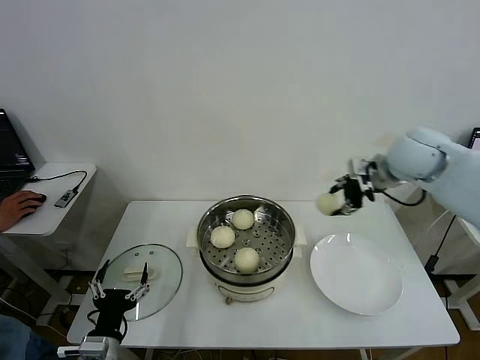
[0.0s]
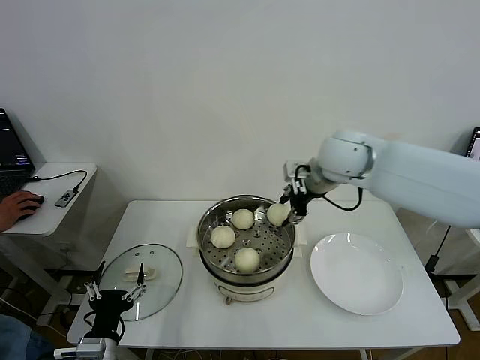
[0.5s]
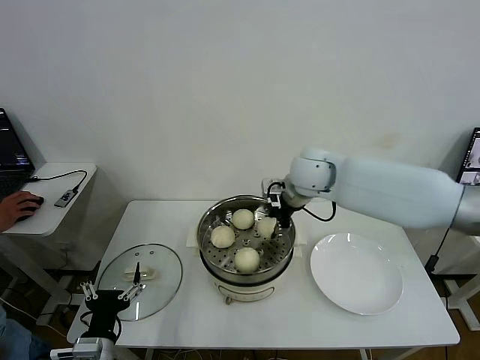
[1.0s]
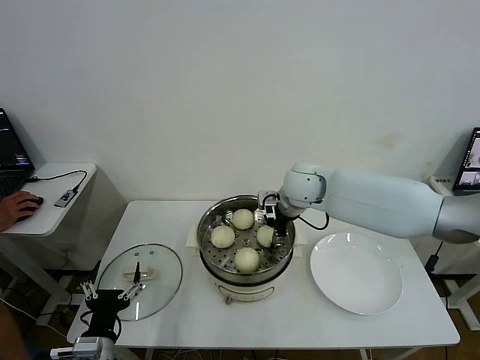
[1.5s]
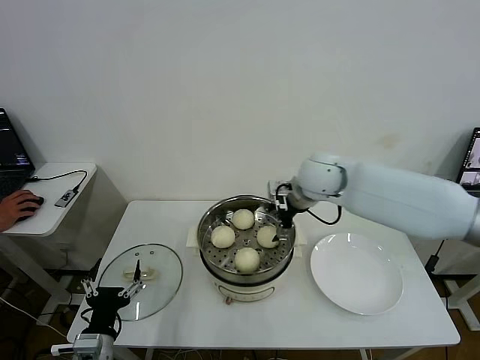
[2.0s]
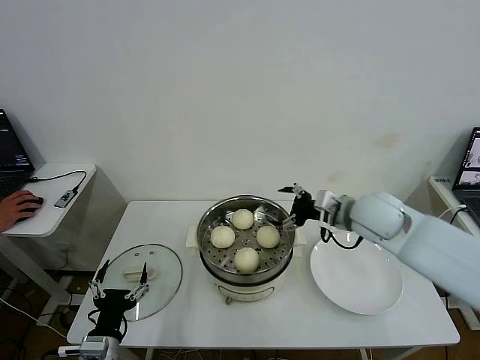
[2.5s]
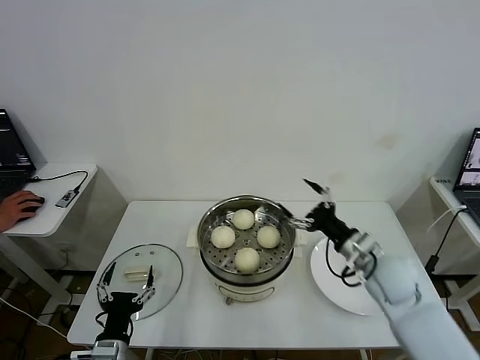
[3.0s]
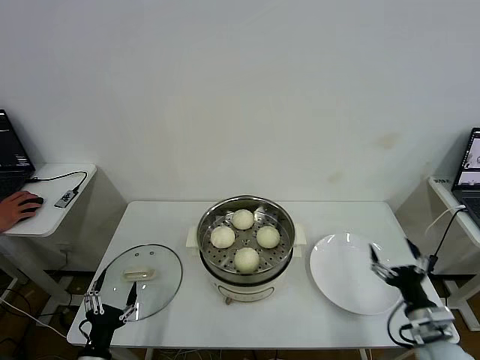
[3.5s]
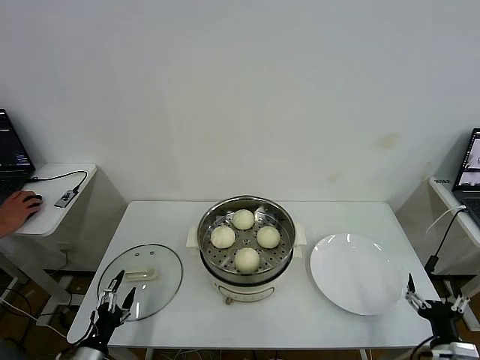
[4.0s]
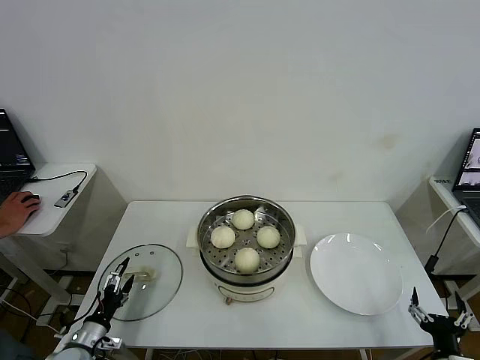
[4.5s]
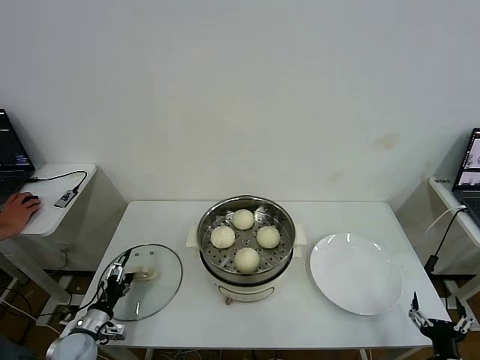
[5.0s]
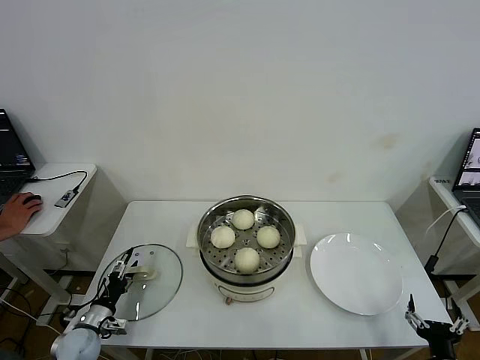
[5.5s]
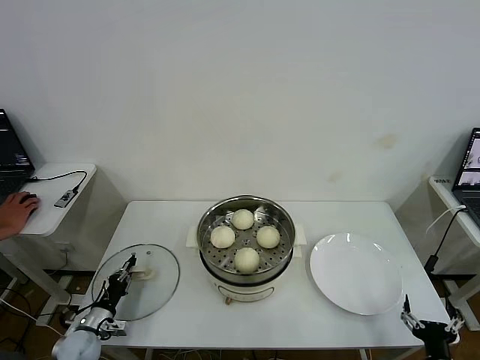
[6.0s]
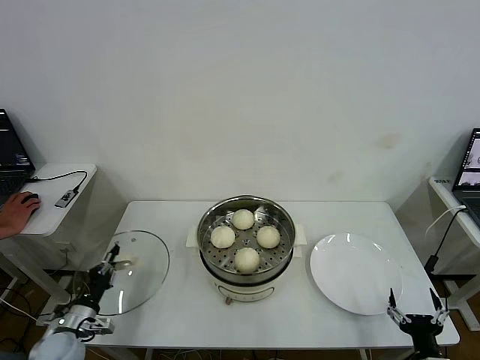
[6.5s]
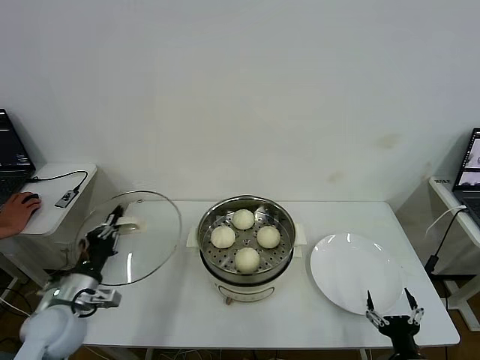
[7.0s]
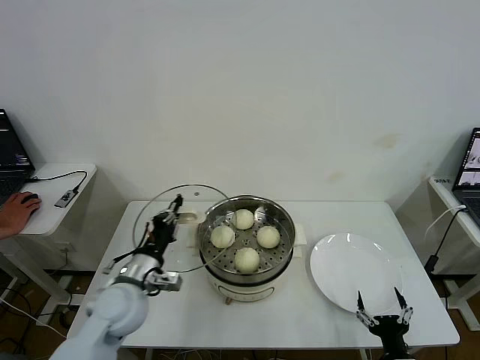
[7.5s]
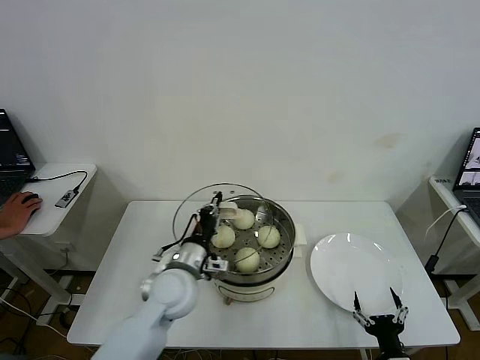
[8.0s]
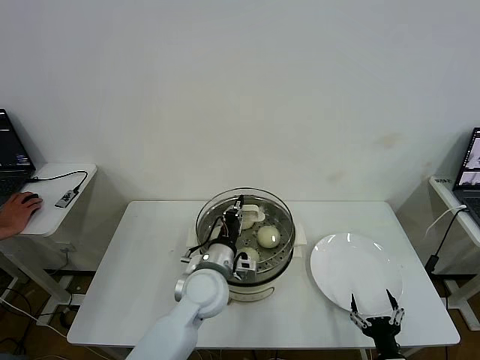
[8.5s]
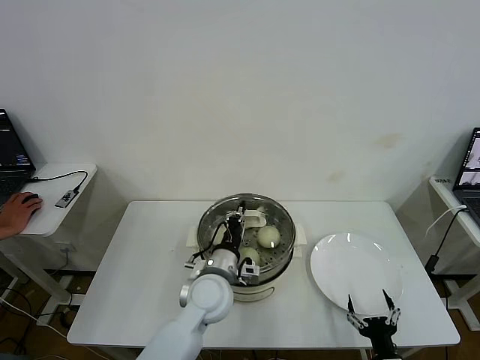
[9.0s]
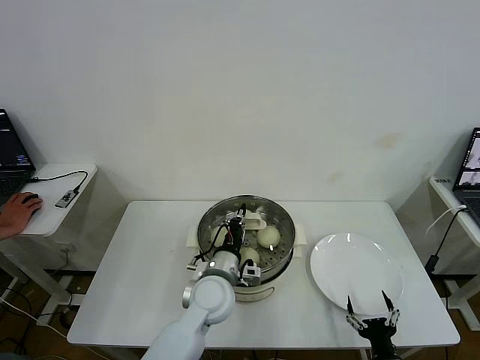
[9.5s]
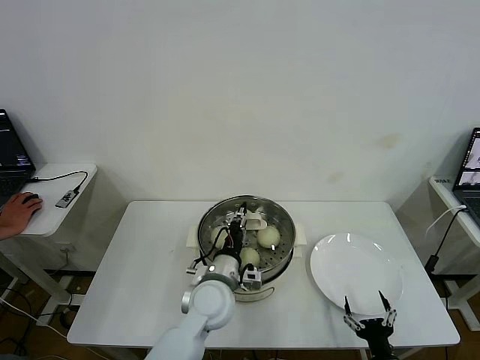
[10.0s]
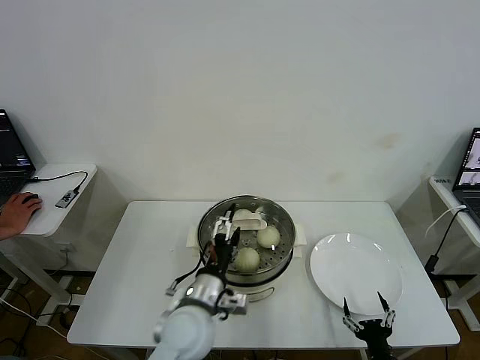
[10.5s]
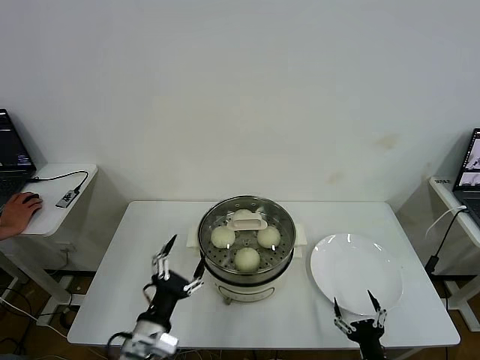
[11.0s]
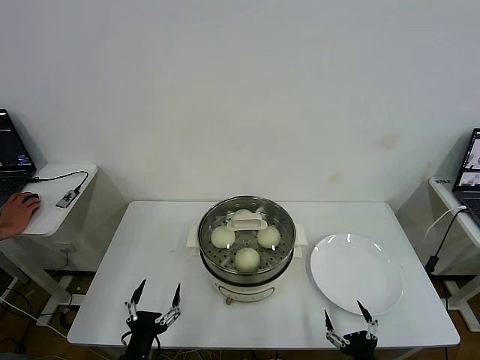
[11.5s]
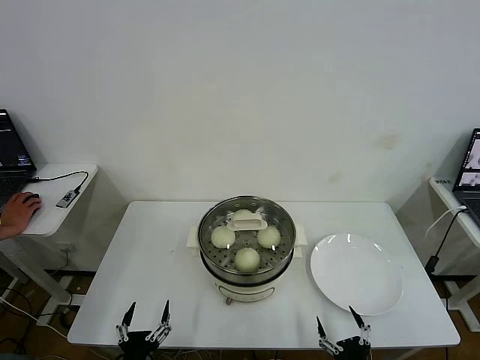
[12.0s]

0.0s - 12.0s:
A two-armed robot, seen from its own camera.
Task of the whole recording: take steamed baozi put them in steamer then cover it.
Step, 0.0s - 1.5s: Place the baozi on the steamer with right gripper.
Step, 2.0s - 6.0s: Grasp the pot lid with left gripper.
Step, 6.5s - 10.0s: Place the pot lid on the steamer with left gripper.
0.0s - 2.0s: The right gripper shifts about 15 cm to the left and downward, and opens.
2.0s - 4.0s: The right gripper heads backward, downward and to the right, covering about 50 cm. The left gripper shifts about 10 cm downward and to the left.
4.0s - 6.0s: The left gripper heads forward and downward, covering roughly 15 cm, and closes.
6.0s - 8.0s: The right gripper travels to the left by about 5 cm; the left gripper heads to the right and upward, covering roughly 35 cm.
8.0s - 10.0s: The left gripper goes roughly 10 cm to the right.
10.0s - 12.0s: The left gripper shifts approximately 30 cm backward, to the left and downward, and opens up. The right gripper shifts by roughly 5 cm.

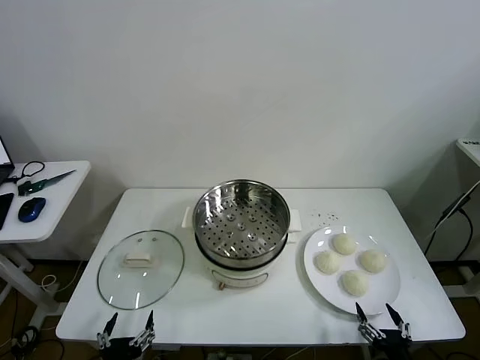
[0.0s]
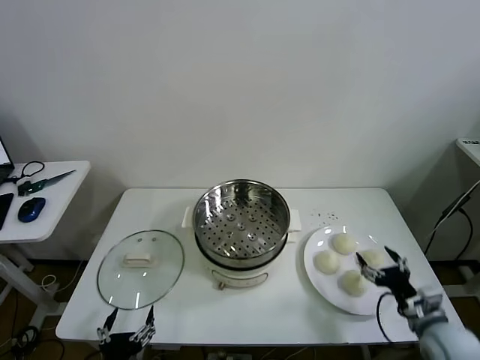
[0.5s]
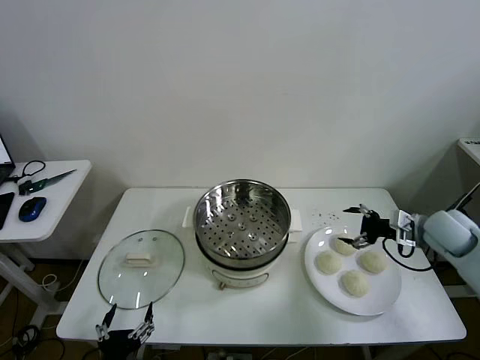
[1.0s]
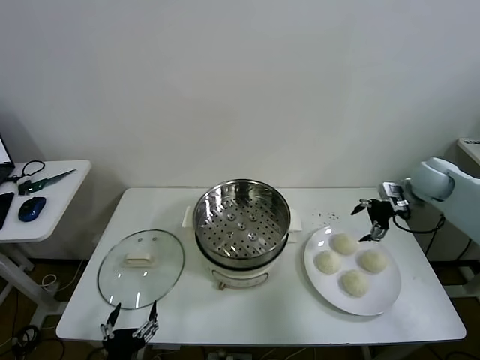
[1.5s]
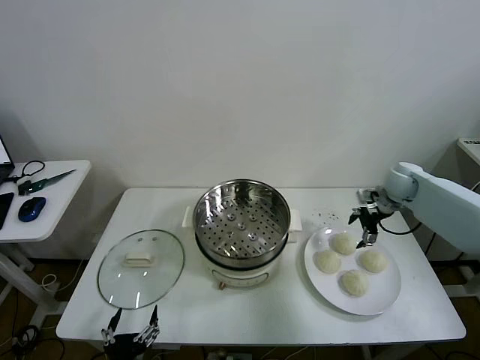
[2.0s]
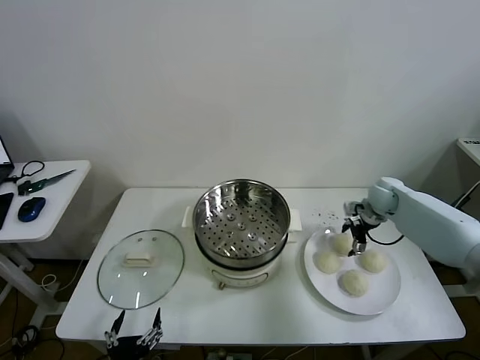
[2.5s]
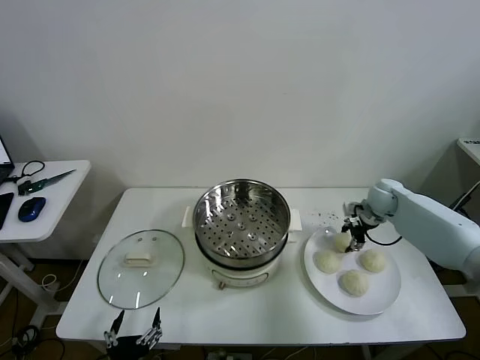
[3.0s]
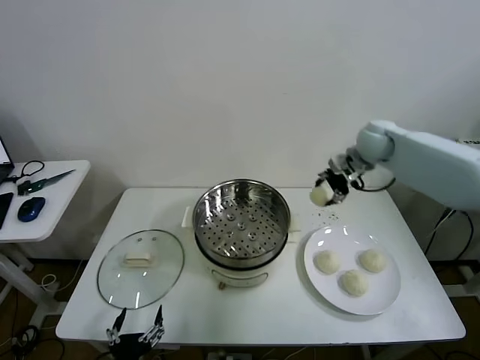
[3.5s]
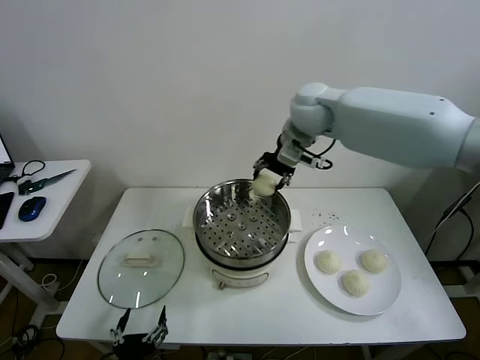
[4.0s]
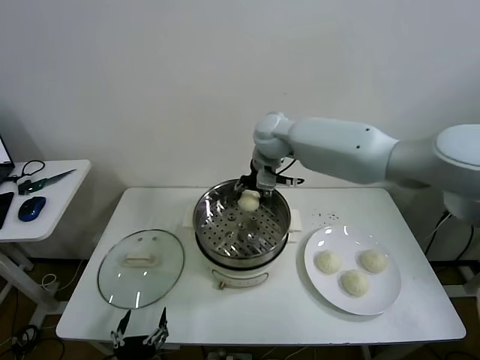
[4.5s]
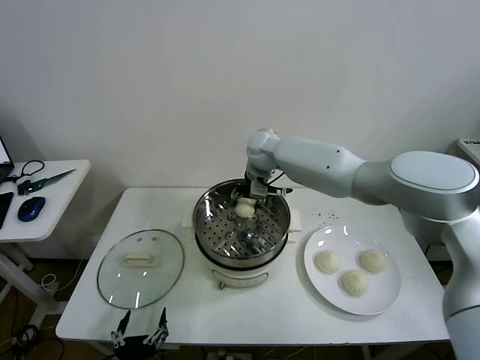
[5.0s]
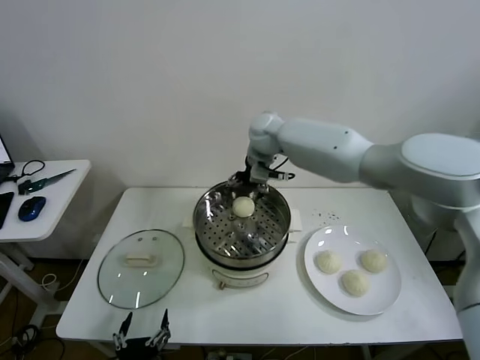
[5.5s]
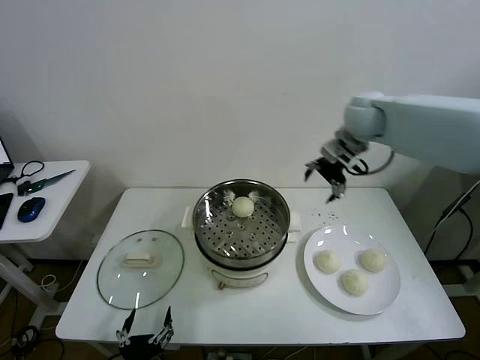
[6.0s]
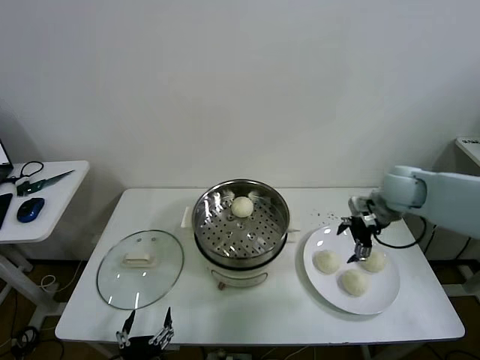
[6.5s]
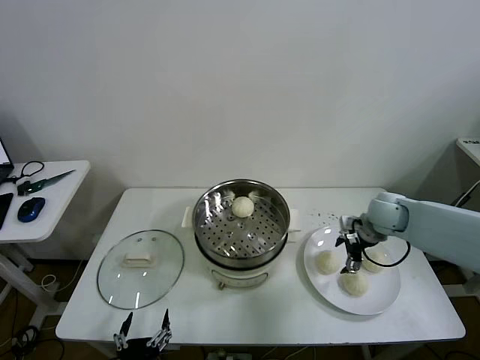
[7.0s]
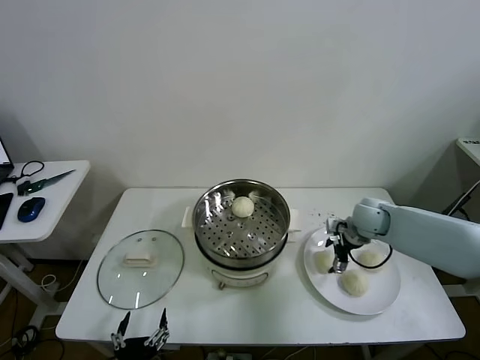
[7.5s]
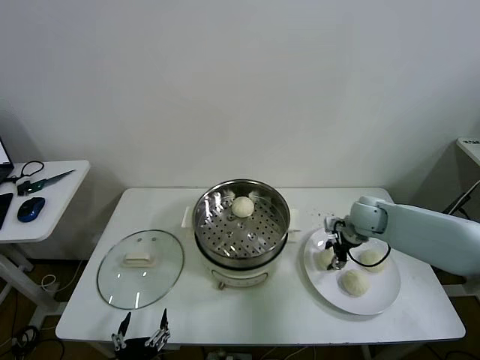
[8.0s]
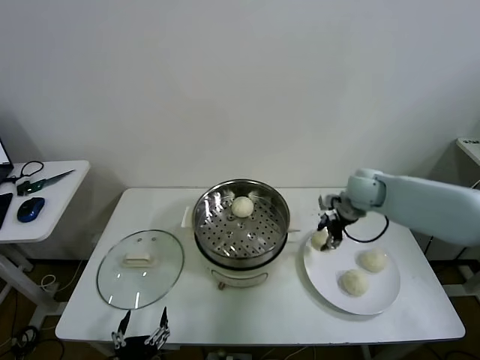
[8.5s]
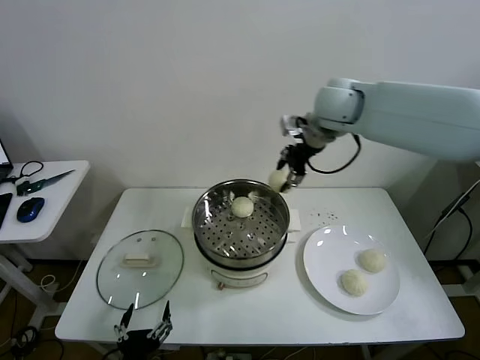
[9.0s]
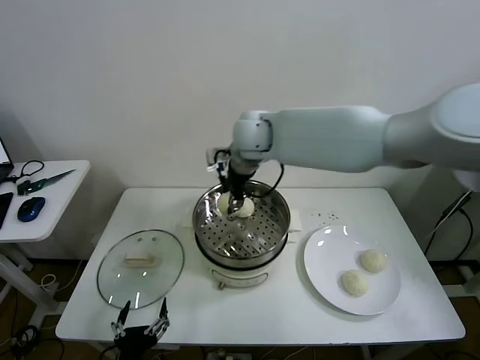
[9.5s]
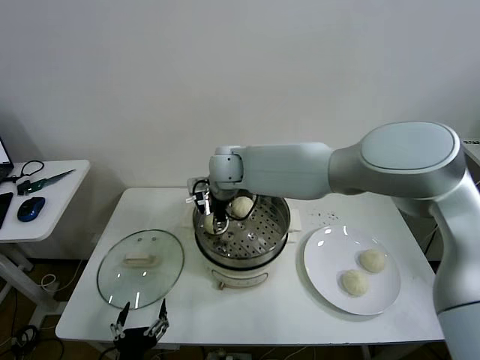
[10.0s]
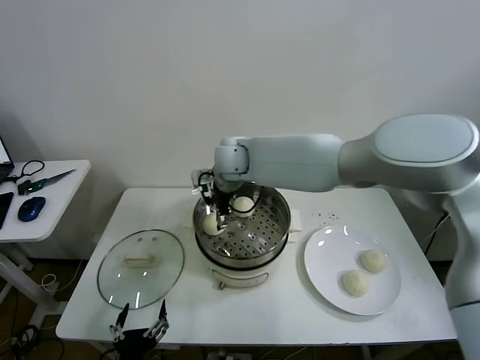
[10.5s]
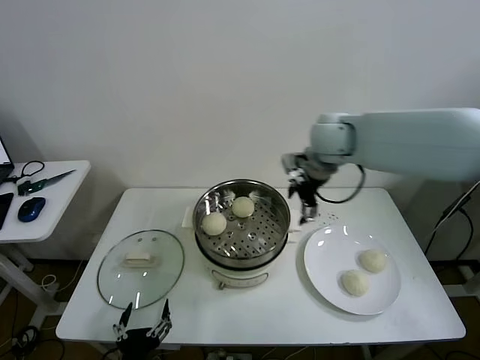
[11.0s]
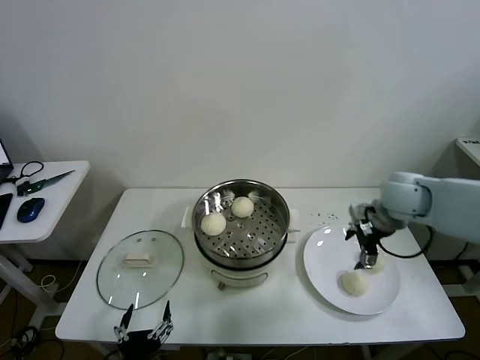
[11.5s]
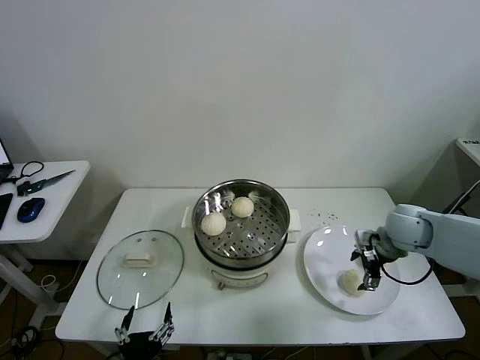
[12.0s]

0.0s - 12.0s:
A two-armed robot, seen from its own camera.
Task of the whole recording: take steamed baozi put them in steamer then cover it.
Step, 0.0s - 2.5s: Grasp the baozi in the plate with right gripper.
Step, 3.0s - 5.5s: Place the baozi on the steamer with right gripper.
Step, 6.0s - 7.5s: Grasp the baozi in the plate with right gripper.
Step, 8.0s - 10.0s: Place the baozi on the steamer with right gripper.
2.0s - 4.0s: The right gripper travels to the left and upward by approximately 35 cm, and closes its fingers.
4.0s - 6.0s: The right gripper is displaced to the right by some 15 cm, and opens.
6.0s - 8.0s: The right gripper goes approximately 25 cm downward, and closes its fingers.
8.0s - 10.0s: The right gripper travels to the left by some 35 cm.
10.0s - 12.0s: The right gripper shifts about 40 cm to the right, and opens up.

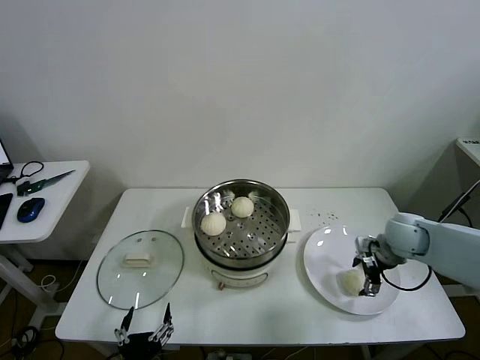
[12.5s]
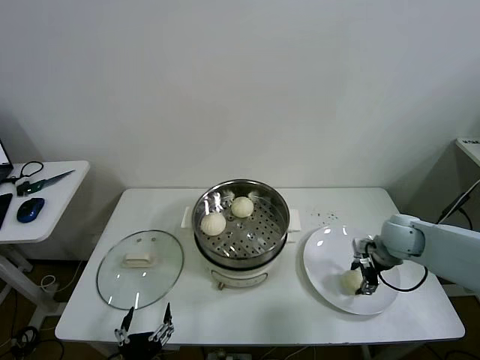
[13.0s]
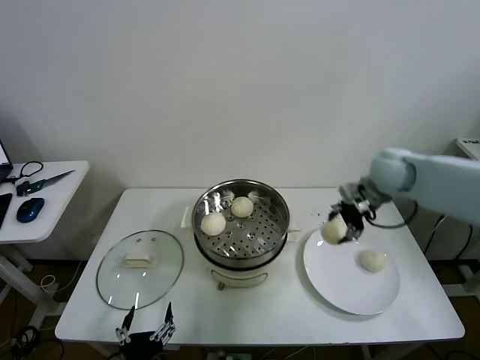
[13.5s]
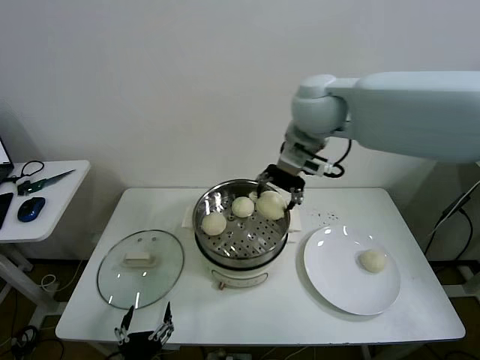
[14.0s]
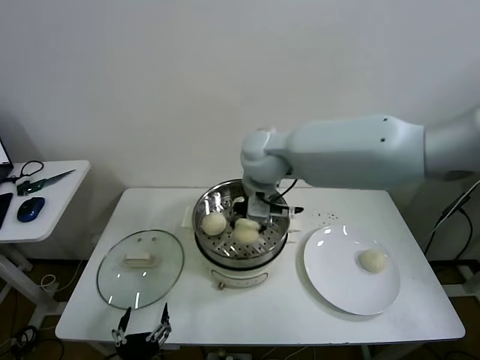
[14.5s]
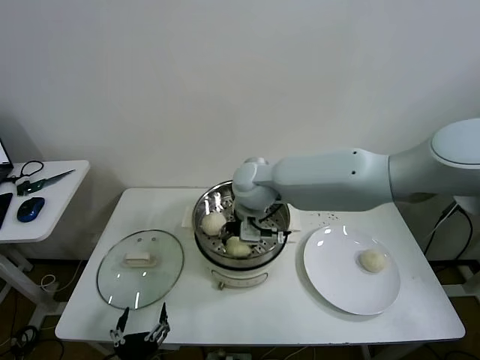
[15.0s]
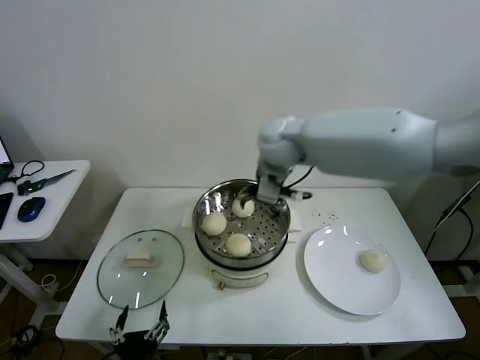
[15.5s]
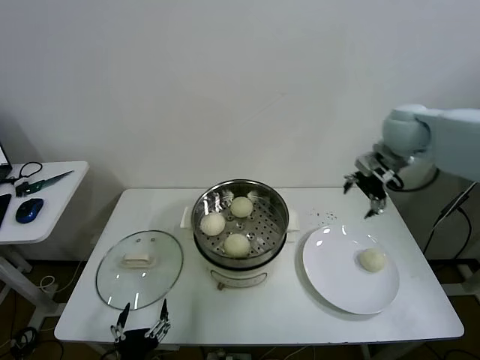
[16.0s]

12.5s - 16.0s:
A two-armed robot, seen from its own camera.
Task of the whole recording: take steamed baozi put them in steamer then cover it.
Step, 13.0s - 15.0s: Place the baozi on the steamer with right gripper.
12.5s - 14.5s: The right gripper moves to the left and upward, about 40 cm, and closes up.
14.5s - 16.0s: The right gripper is displaced to the right by some 30 cm, and opens.
